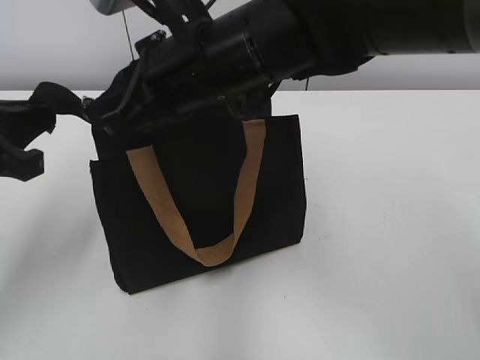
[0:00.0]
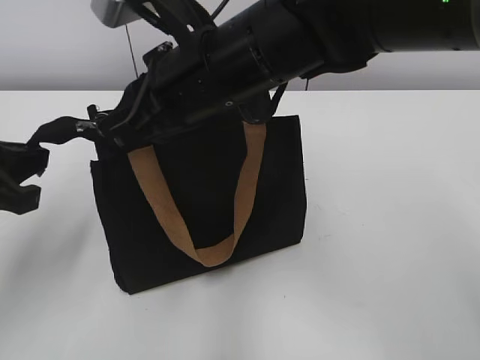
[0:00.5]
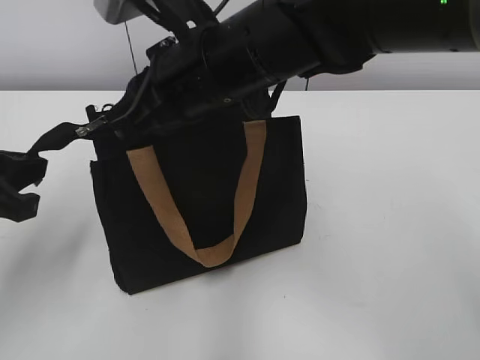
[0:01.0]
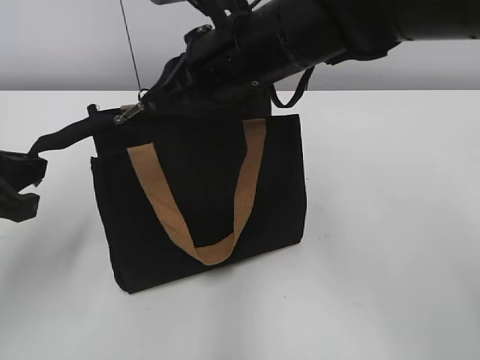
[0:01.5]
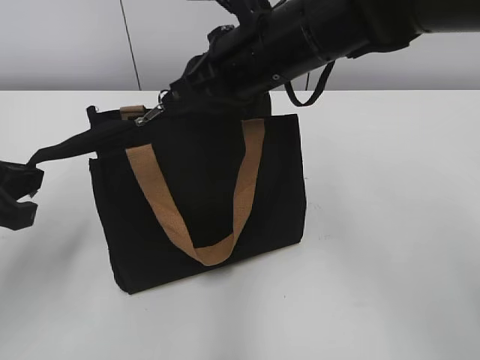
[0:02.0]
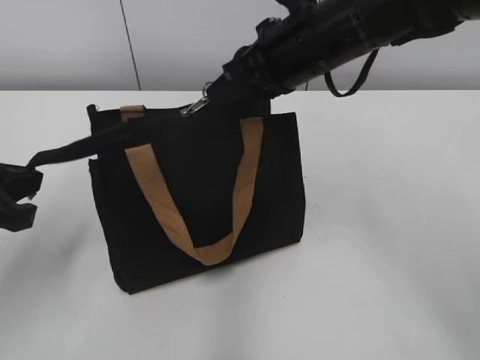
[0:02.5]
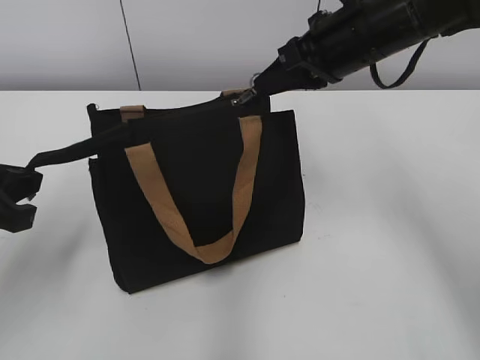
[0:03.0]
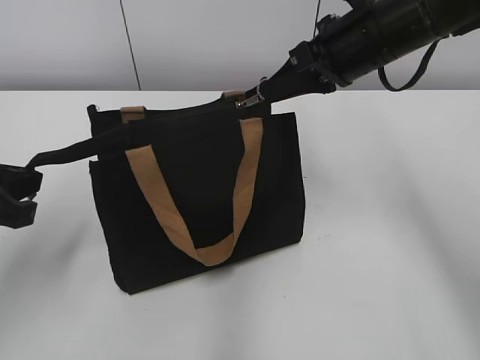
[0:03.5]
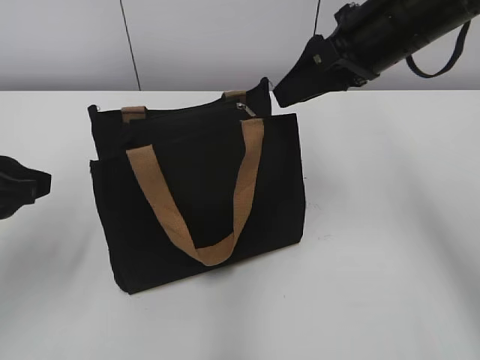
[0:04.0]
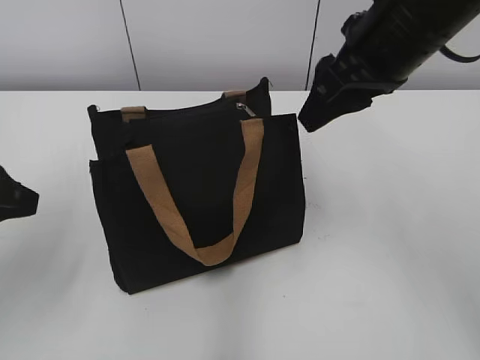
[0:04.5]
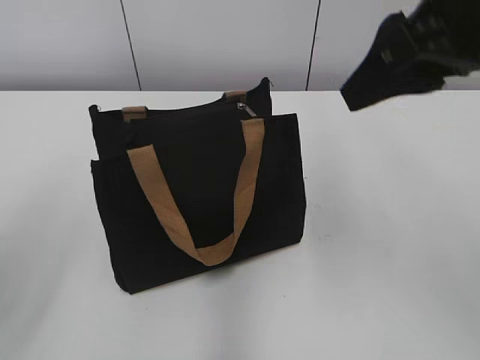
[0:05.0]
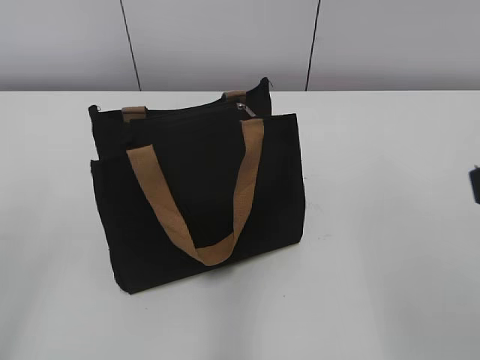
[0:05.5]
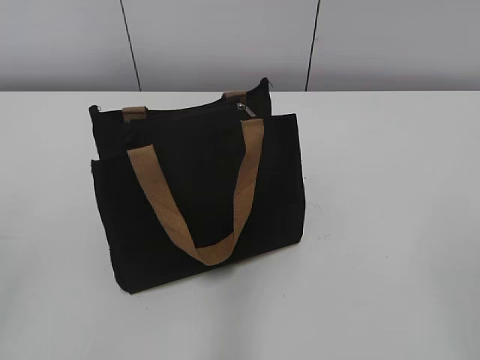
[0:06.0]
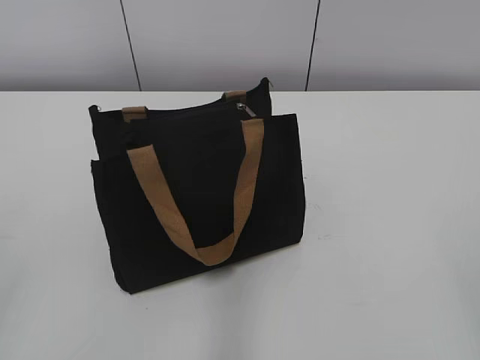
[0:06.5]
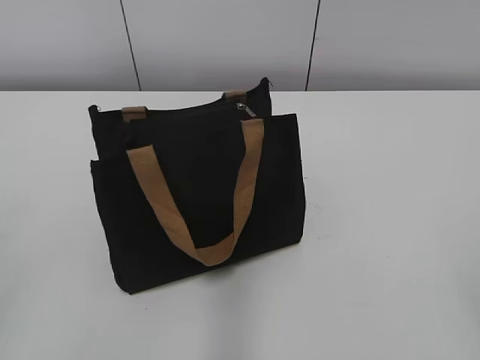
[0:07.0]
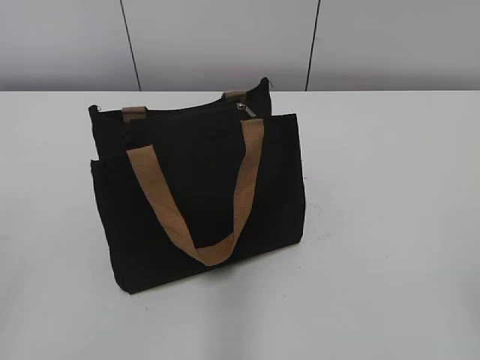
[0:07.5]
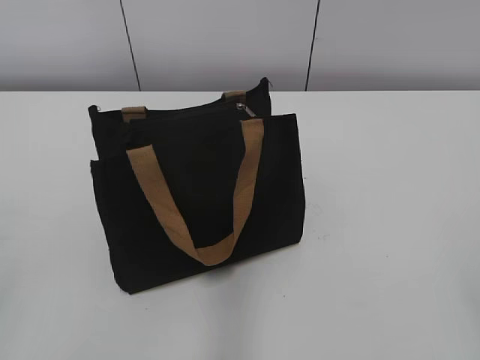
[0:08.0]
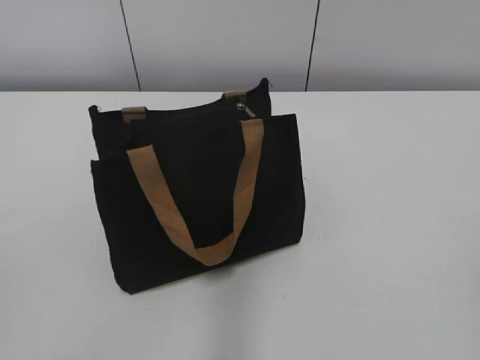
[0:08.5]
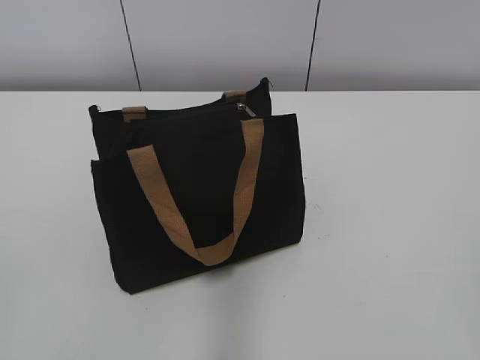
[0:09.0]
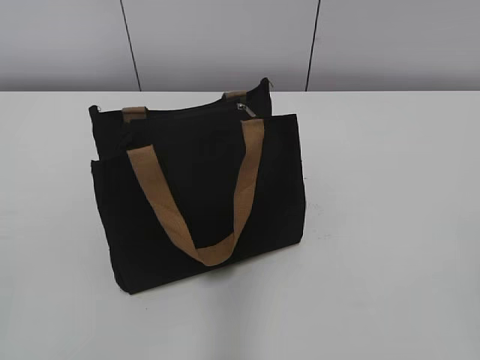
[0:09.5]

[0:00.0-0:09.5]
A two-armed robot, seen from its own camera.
Step, 0:00.0 to 0:03.5: Zip up the bag with your right hand.
0:00.0 to 0:02.0: The right gripper ends up some 5 cm from where it was.
0:02.0 to 0:04.0: The right gripper is displaced to the right by approximately 10 cm, and opens its fingers, while the left gripper opens up.
0:04.0 to 0:05.5: The left gripper is displaced backward and upward by about 15 cm; the right gripper travels backward by some 20 cm.

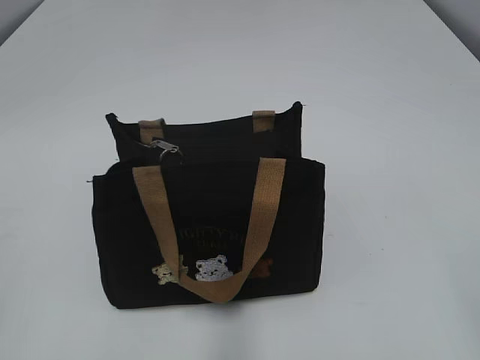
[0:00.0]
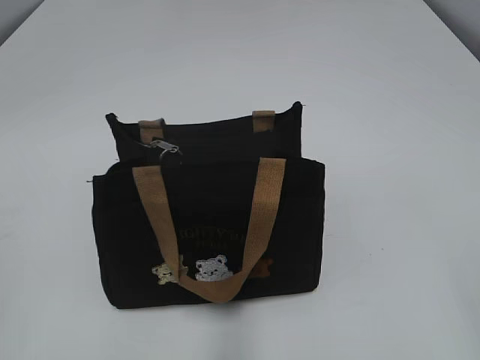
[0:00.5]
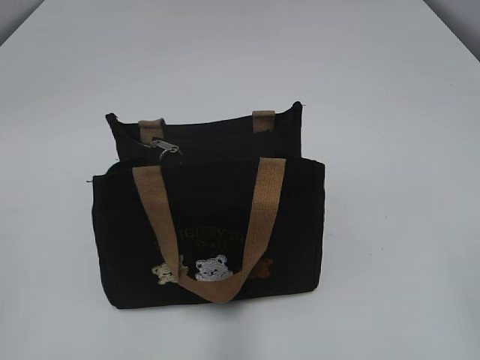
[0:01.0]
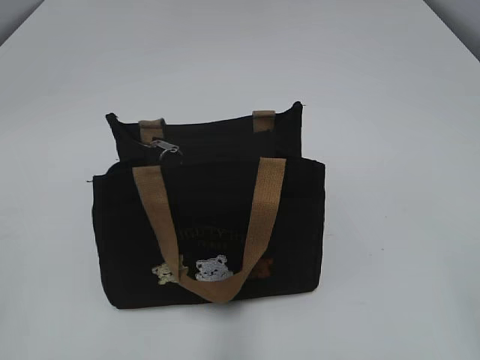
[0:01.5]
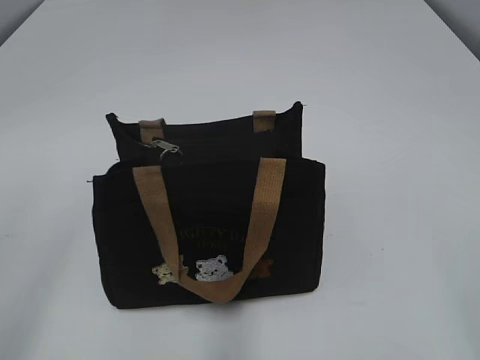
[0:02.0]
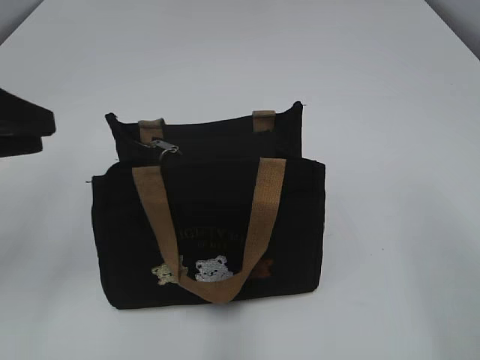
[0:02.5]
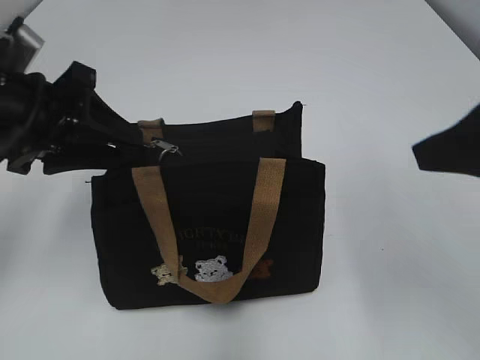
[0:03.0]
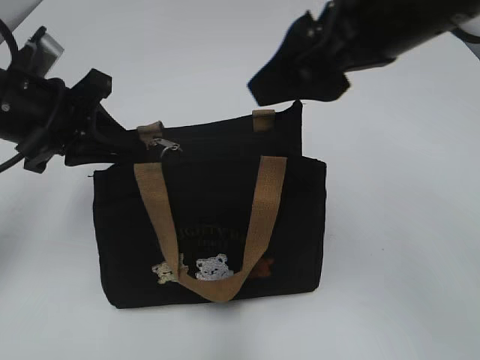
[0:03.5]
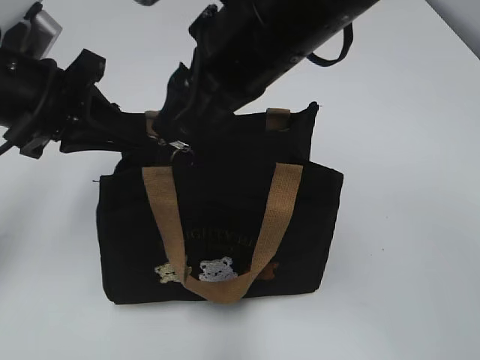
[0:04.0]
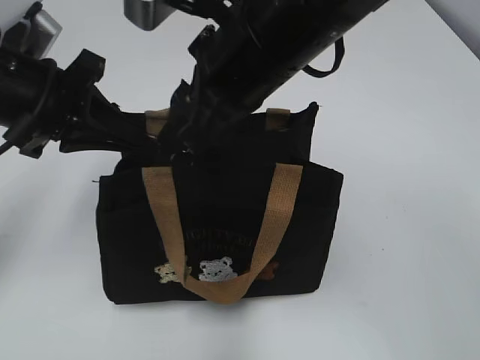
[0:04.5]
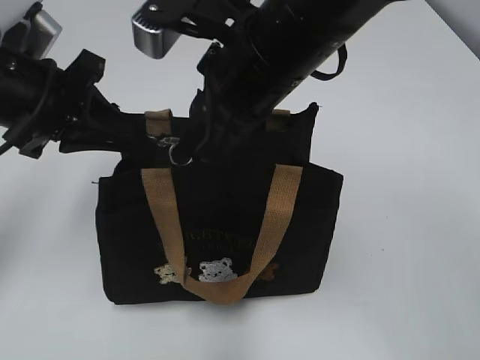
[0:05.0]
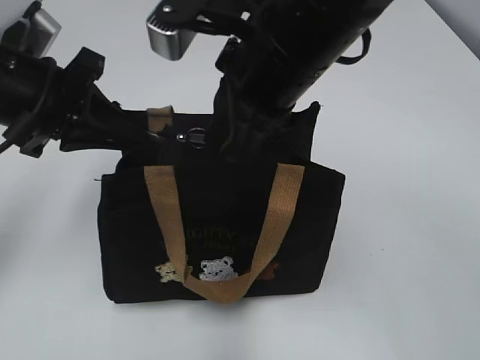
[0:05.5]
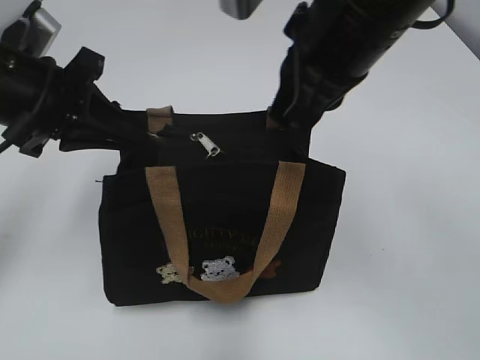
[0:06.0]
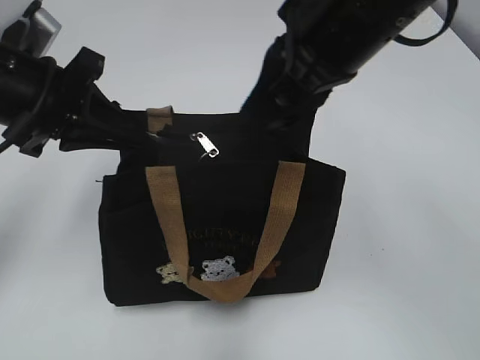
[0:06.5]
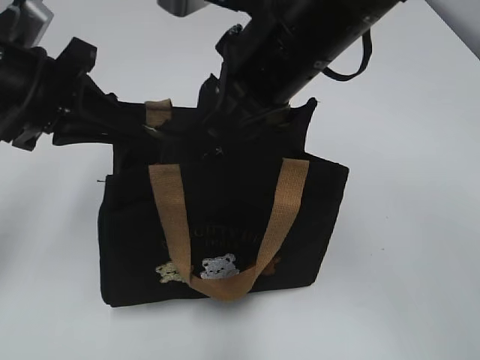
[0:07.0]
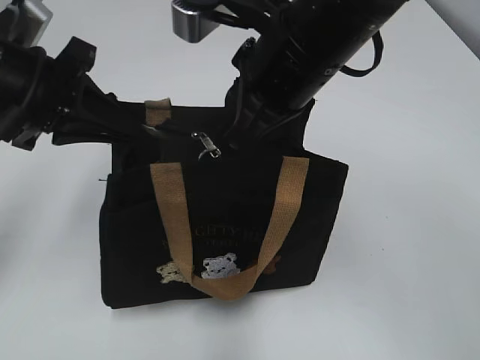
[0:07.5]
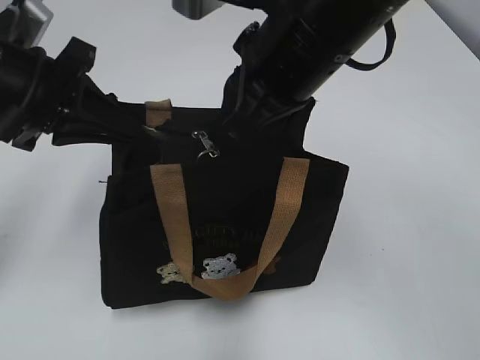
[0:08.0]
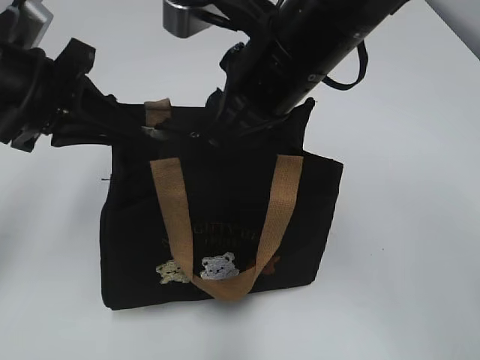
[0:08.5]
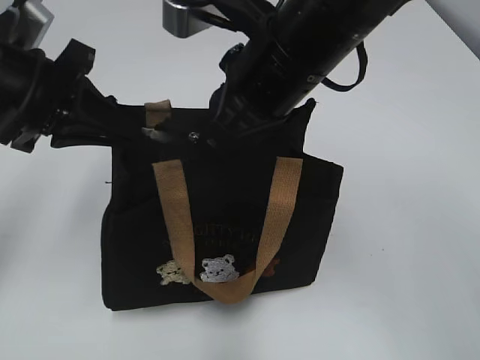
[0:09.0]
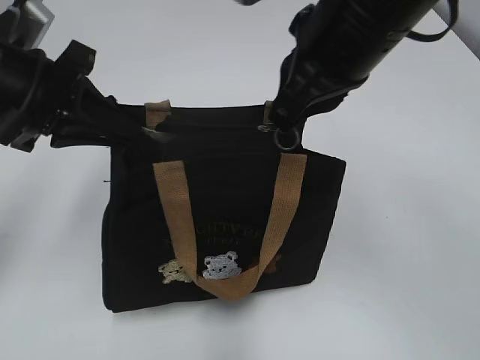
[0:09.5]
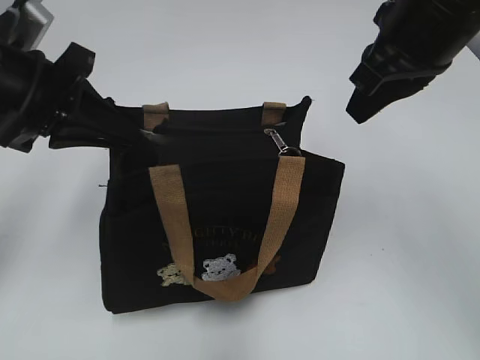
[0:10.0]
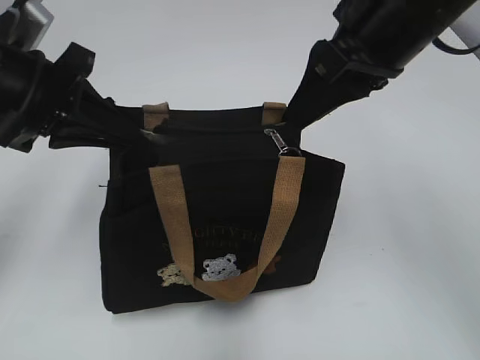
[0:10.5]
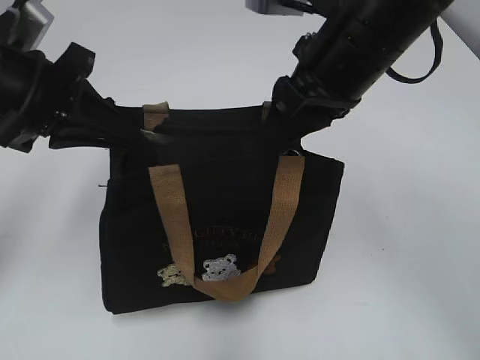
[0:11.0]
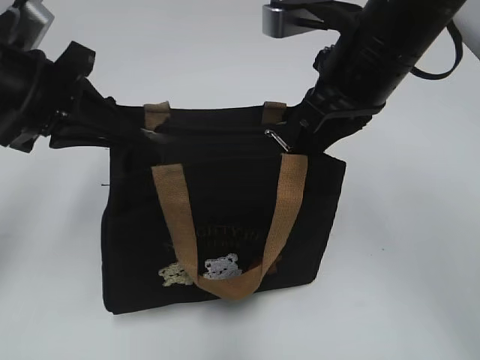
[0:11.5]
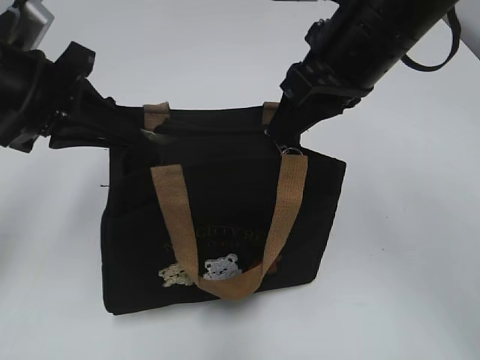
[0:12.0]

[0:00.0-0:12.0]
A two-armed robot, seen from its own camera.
0:02.0 to 0:04.0: The left gripper goes about 25 cm forward, and closes its fingers. The right gripper heads forward and to the left, covering some 35 cm.
0:04.0 to 0:06.0: The right gripper changes place by approximately 5 cm, and closes.
0:06.0 to 0:08.0: The right gripper opens, then closes again.
0:08.0 to 0:10.0: The right gripper is displaced to the right by approximately 10 cm, and opens, then closes once more.
0:10.0 to 0:12.0: There are only small adjustments of the grippers.

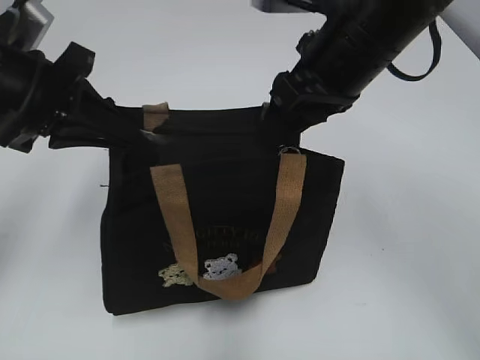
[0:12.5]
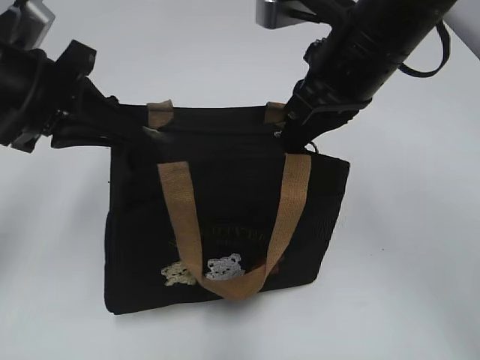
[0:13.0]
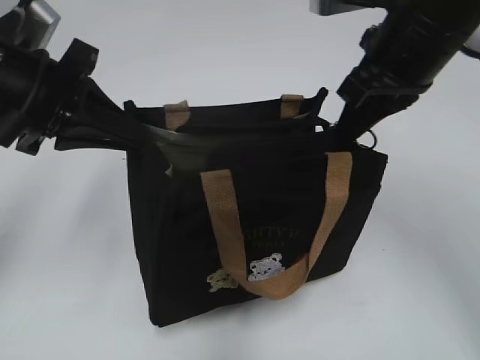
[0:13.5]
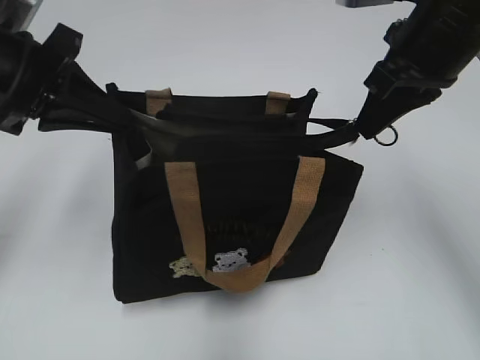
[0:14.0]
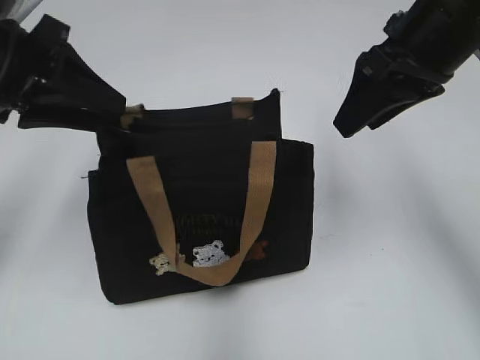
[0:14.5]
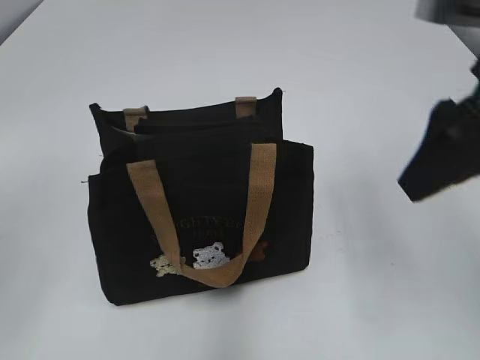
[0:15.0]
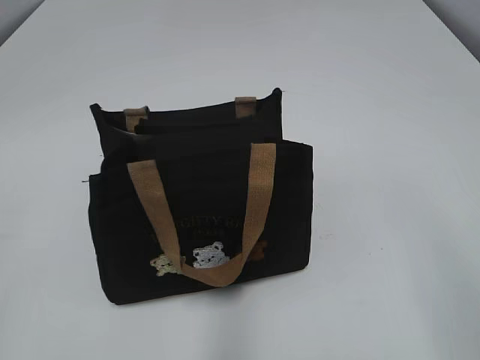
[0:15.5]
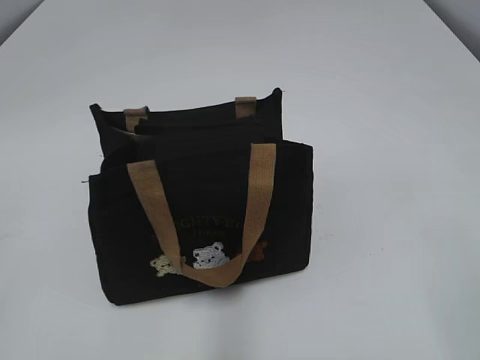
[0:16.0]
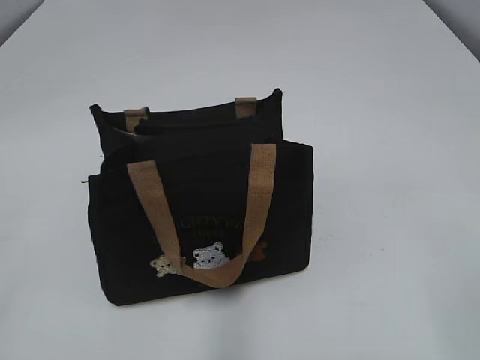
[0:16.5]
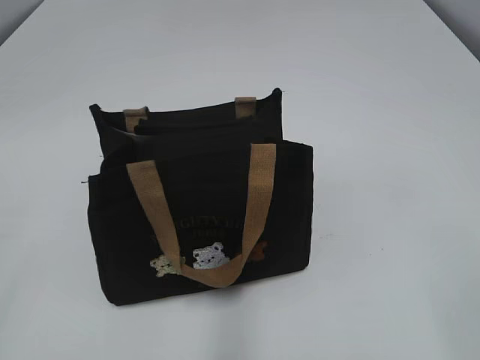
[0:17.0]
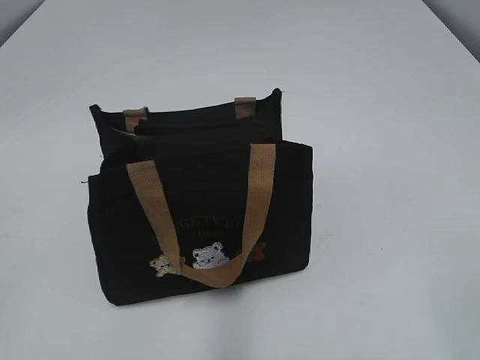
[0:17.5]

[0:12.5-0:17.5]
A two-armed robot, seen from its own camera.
0:12.5 to 0:15.0: The right gripper travels to the right and backward by about 10 cm, and closes, then reopens. Meanwhile the left gripper heads backward, upward and to the left, covering roughly 15 cm, and opens its fingers.
0:15.0 to 0:17.5: The two grippers go approximately 20 cm backward.
